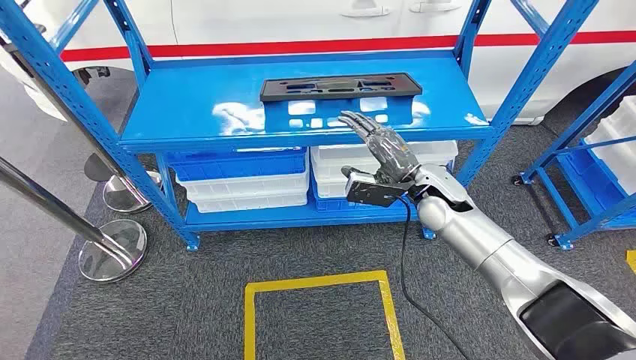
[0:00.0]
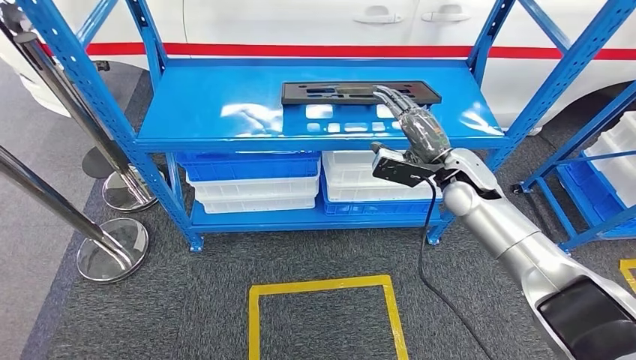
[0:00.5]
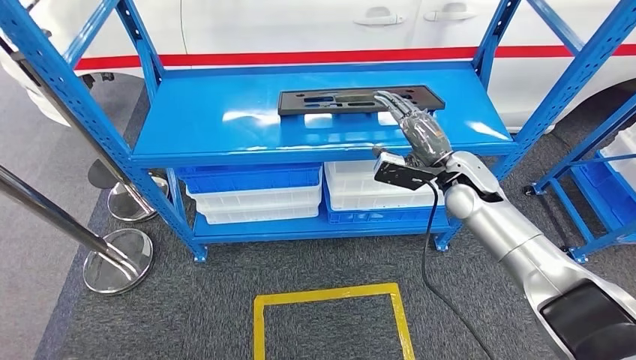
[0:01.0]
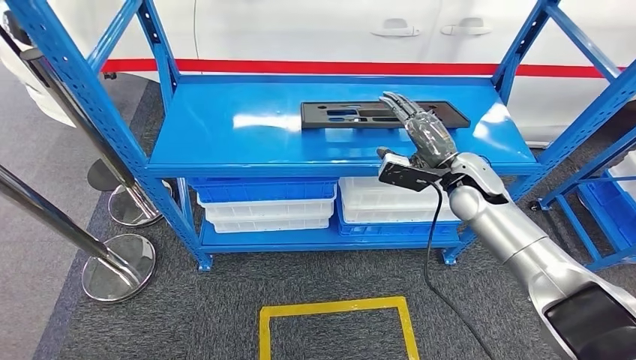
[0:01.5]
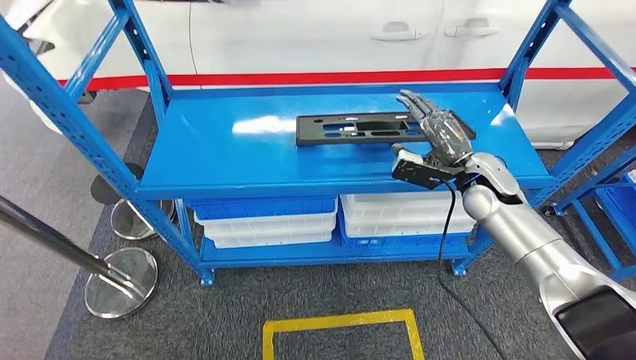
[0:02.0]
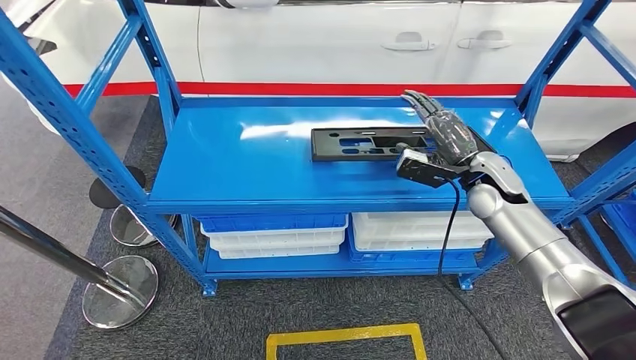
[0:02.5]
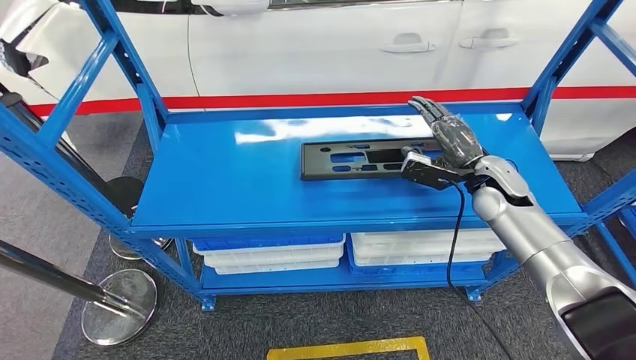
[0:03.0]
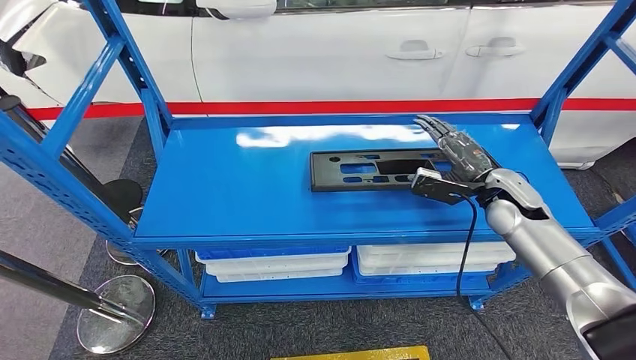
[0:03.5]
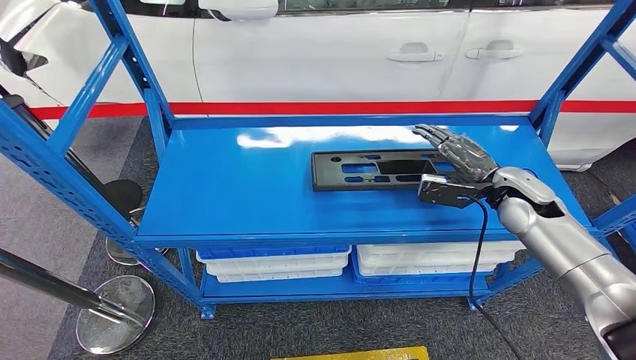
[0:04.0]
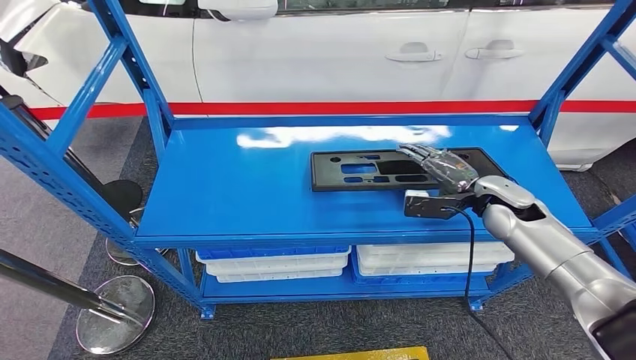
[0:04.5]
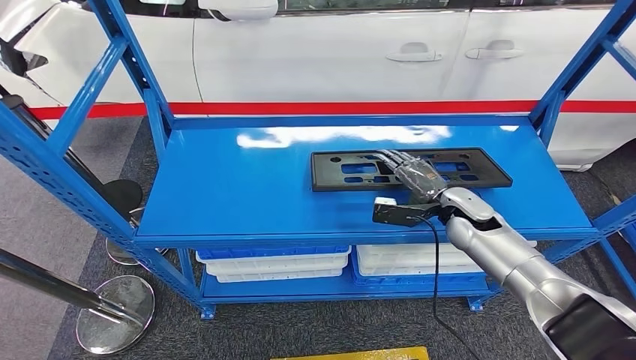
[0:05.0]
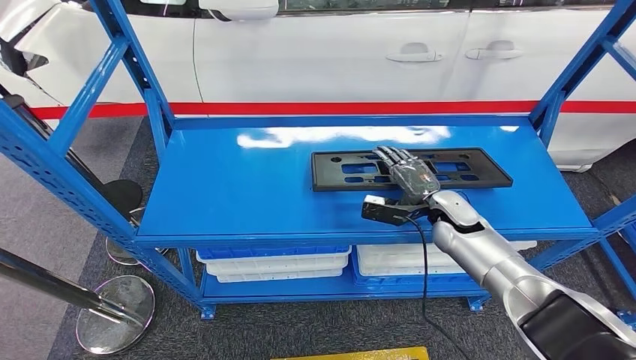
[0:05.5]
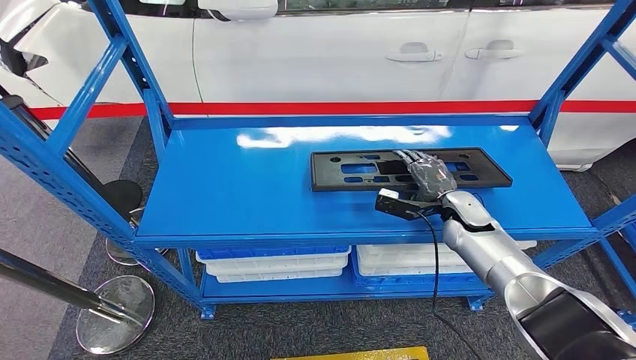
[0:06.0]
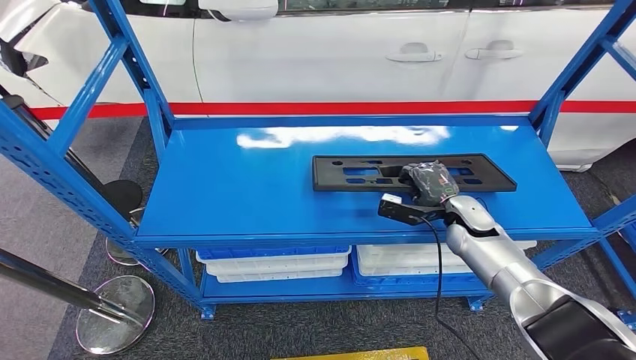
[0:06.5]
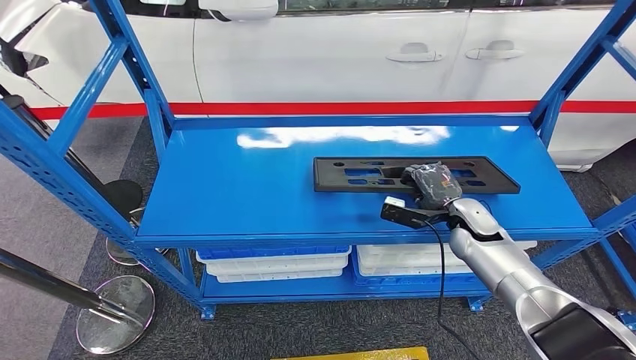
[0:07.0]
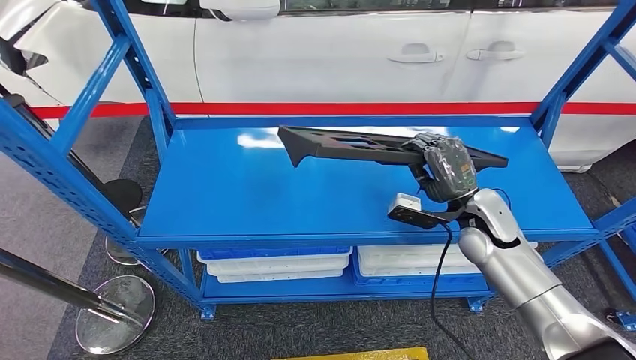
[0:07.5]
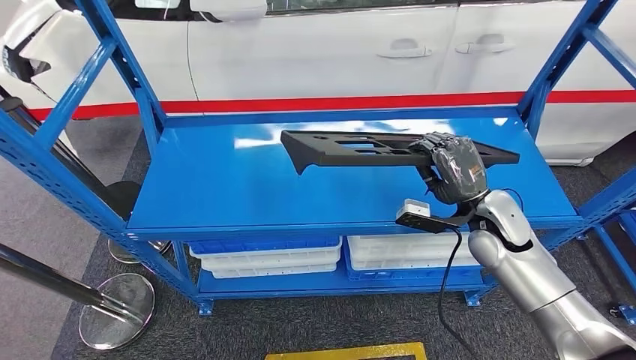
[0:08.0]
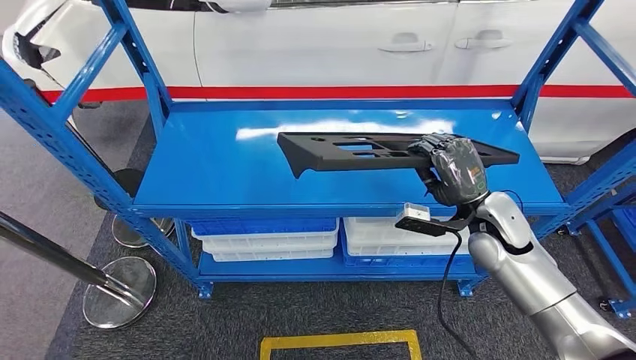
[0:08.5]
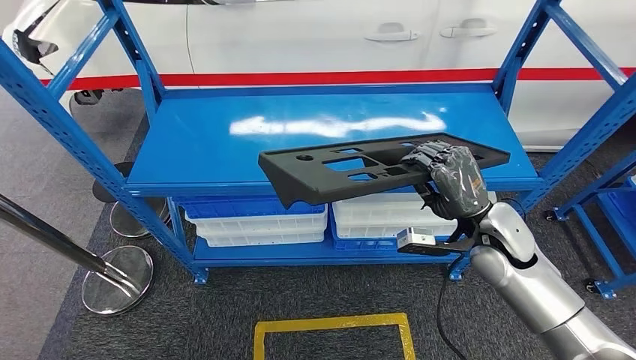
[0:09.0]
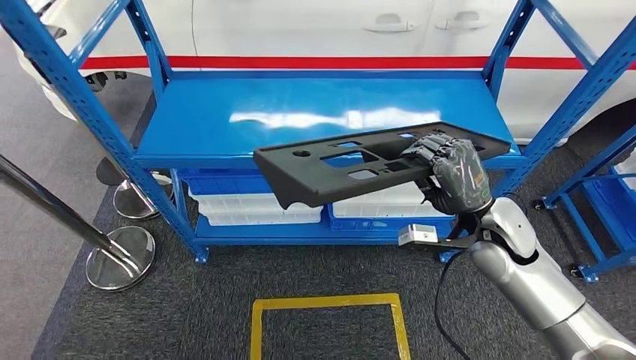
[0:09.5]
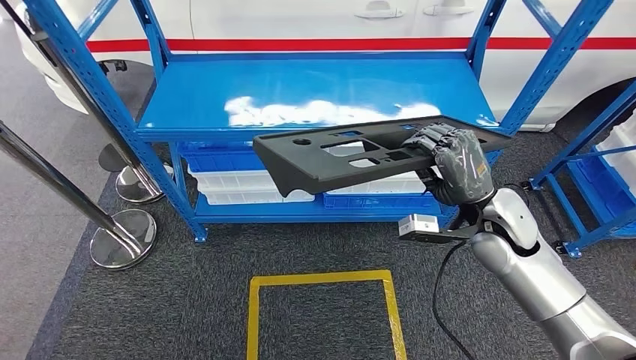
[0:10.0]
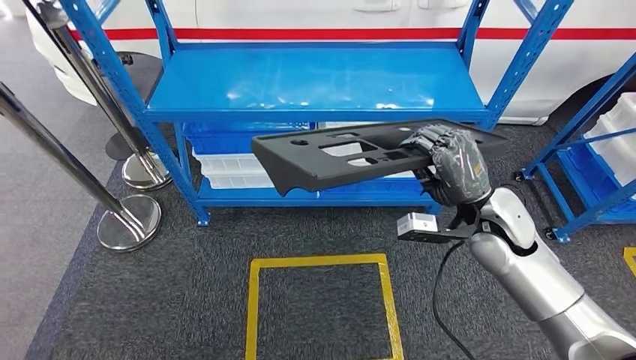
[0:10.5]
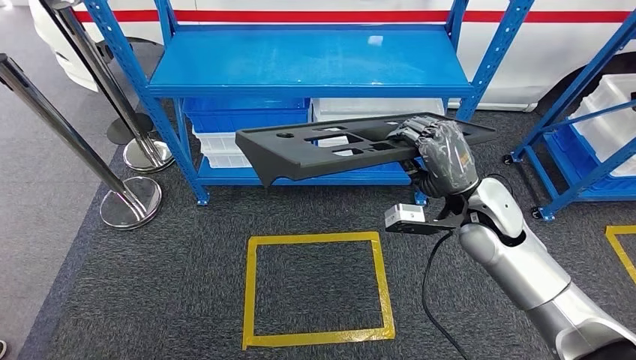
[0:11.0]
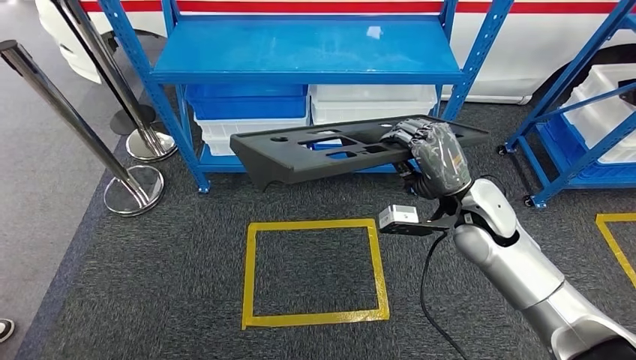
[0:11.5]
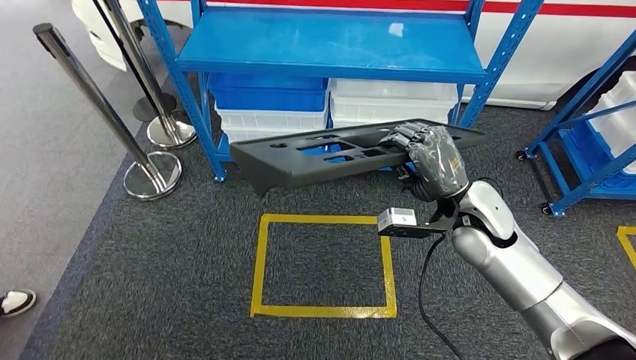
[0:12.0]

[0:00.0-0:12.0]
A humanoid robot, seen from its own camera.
Step, 0:00.0 to 0:10.5: Pick up the large material from the shelf.
0:04.0 to 0:06.0: The right hand moves downward and to the left, approximately 10 cm.

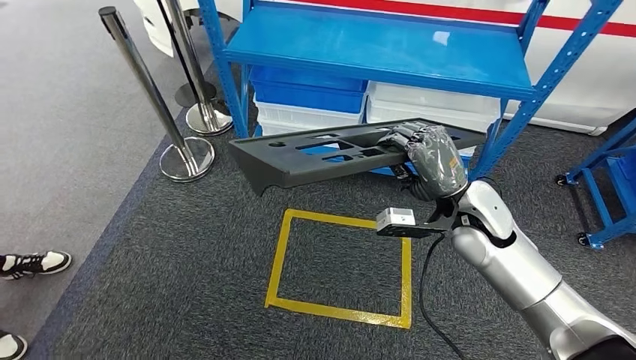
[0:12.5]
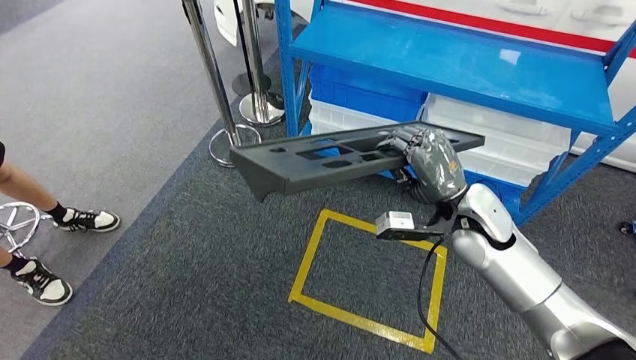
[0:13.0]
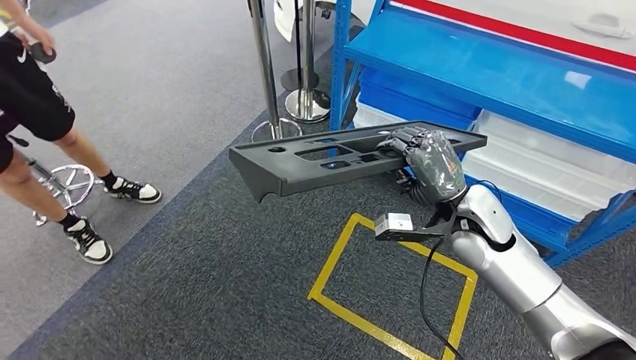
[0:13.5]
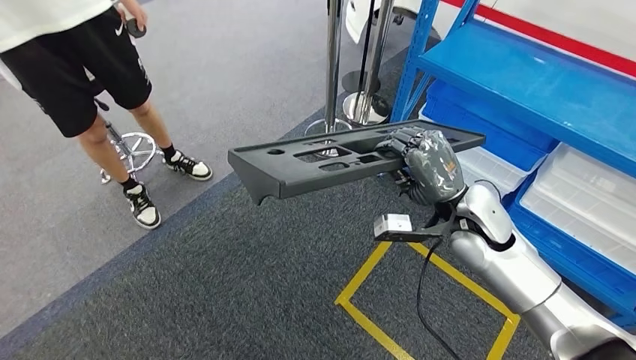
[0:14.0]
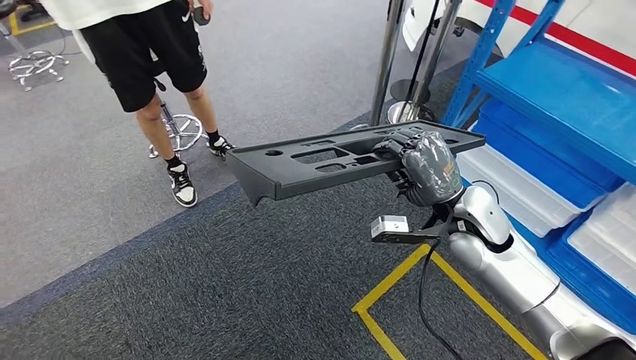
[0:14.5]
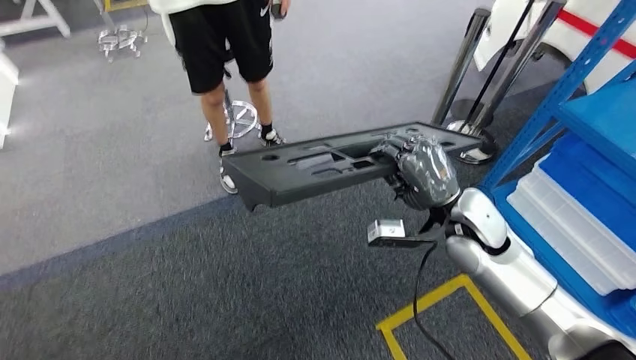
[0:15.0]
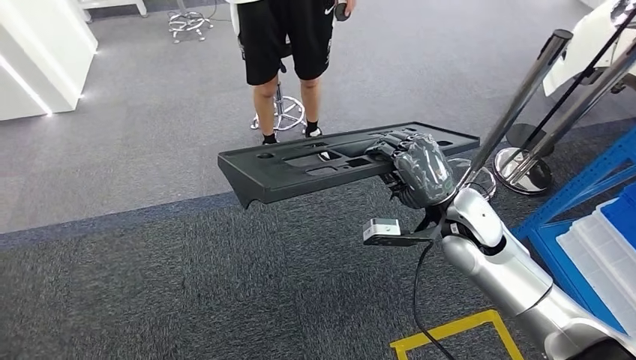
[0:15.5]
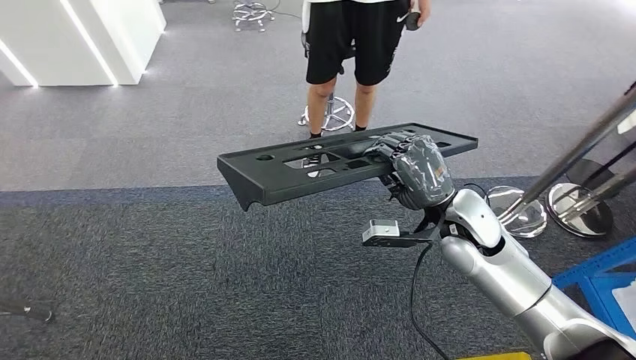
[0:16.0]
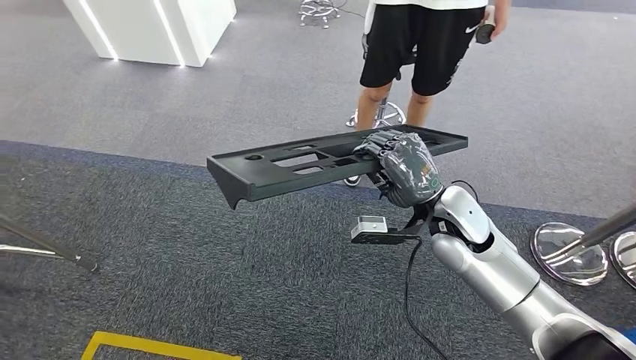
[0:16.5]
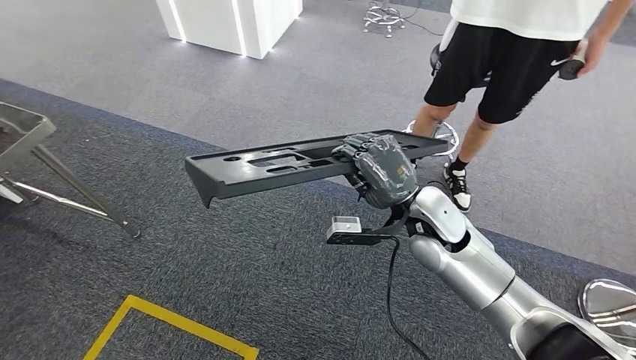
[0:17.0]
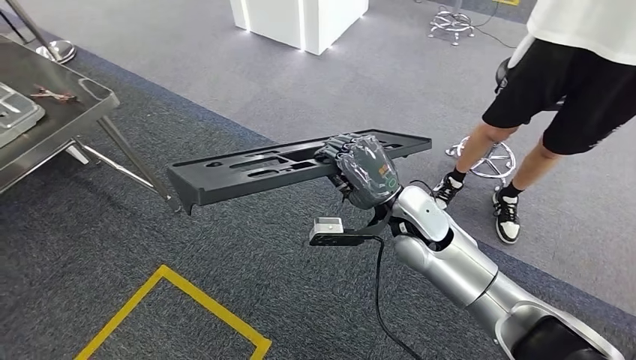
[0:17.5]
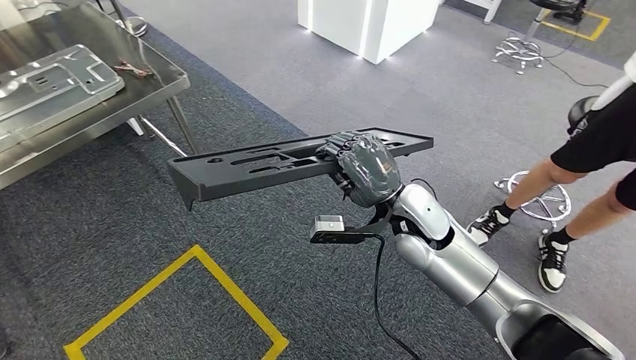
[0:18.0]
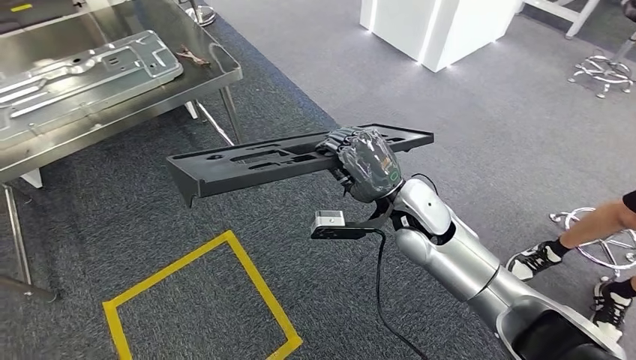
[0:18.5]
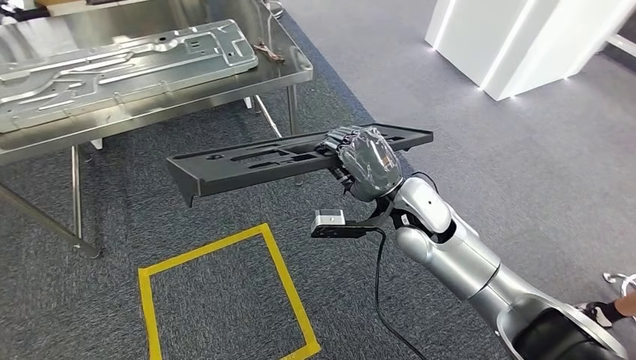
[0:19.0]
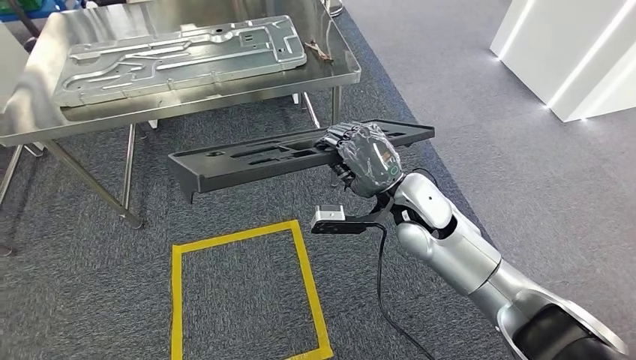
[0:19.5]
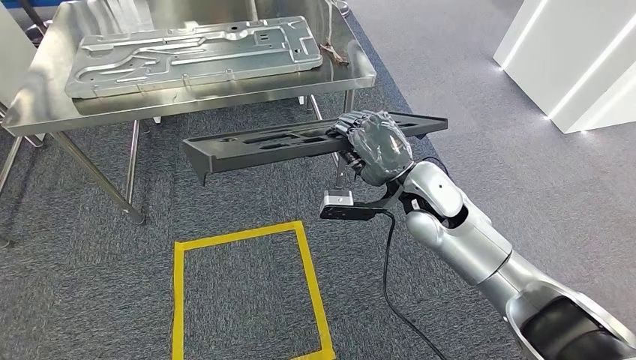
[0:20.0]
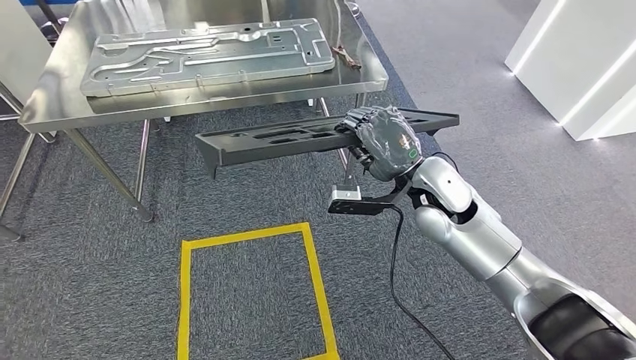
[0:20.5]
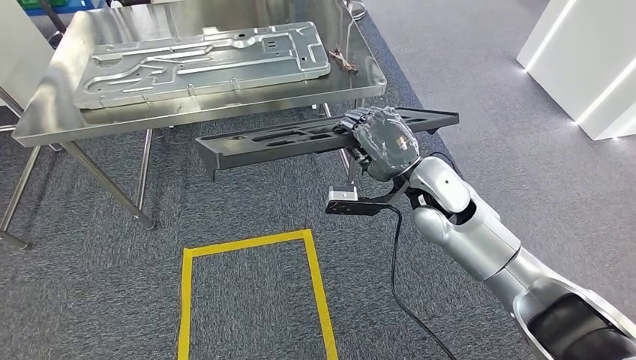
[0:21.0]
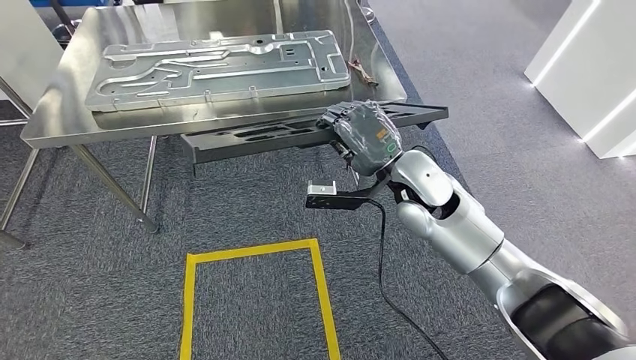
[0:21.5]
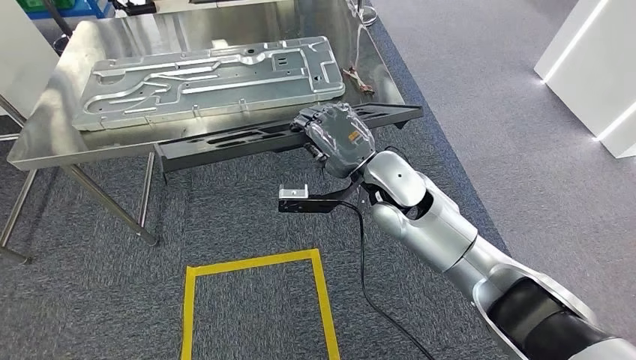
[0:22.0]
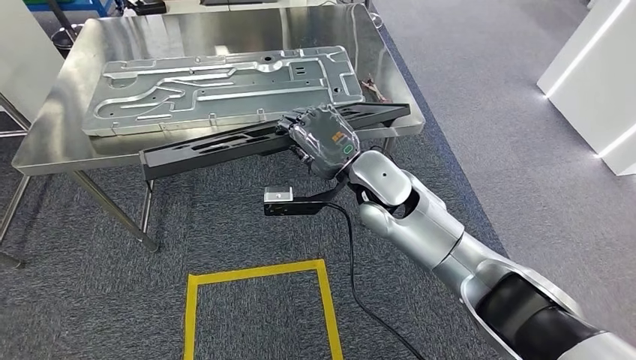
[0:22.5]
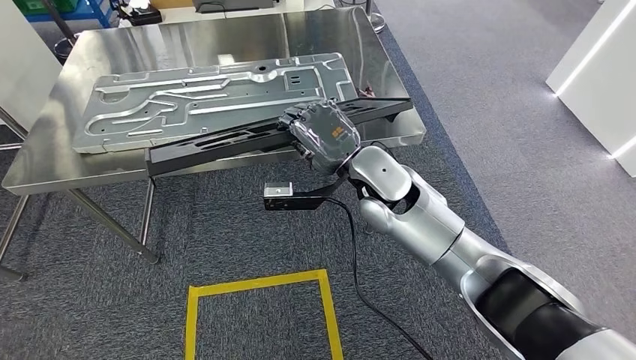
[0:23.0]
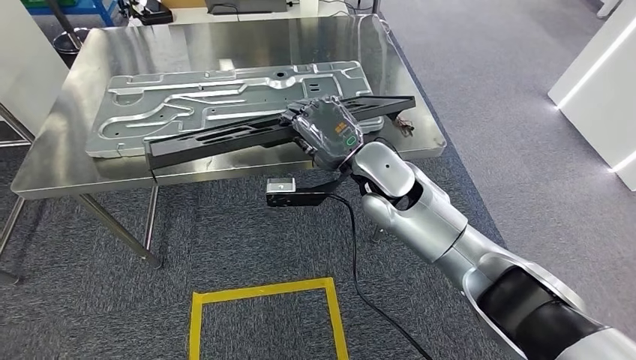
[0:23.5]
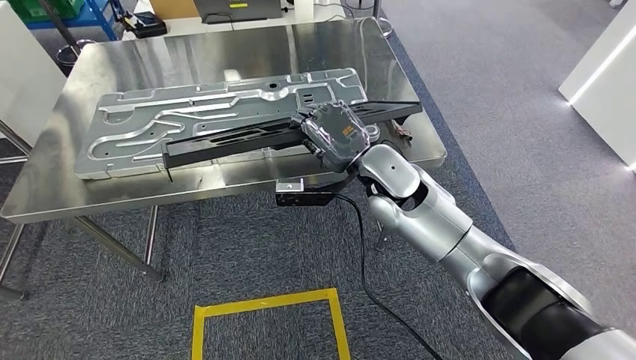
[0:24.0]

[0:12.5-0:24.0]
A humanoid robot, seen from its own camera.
Step, 0:12.5 to 0:21.5: Move the large material to the workbench.
